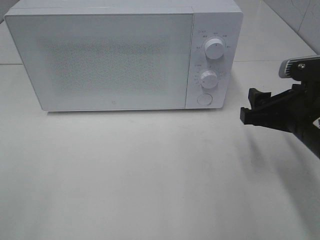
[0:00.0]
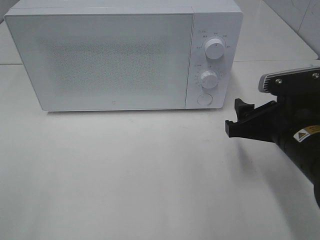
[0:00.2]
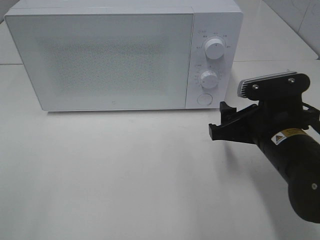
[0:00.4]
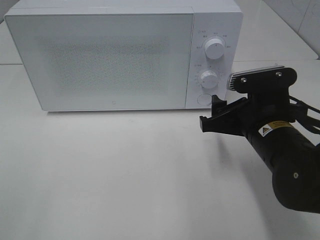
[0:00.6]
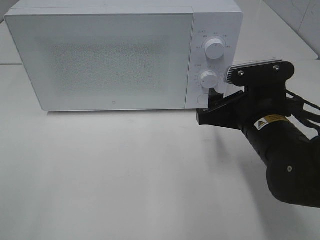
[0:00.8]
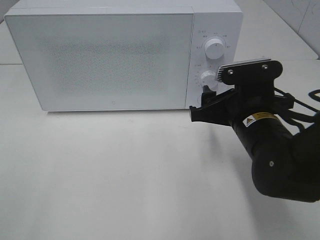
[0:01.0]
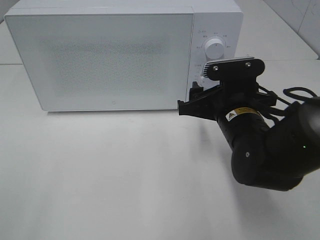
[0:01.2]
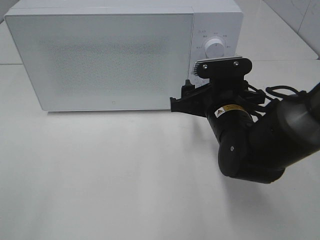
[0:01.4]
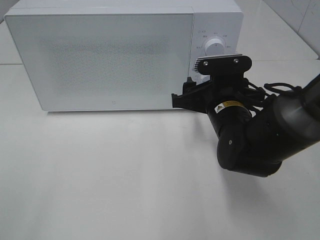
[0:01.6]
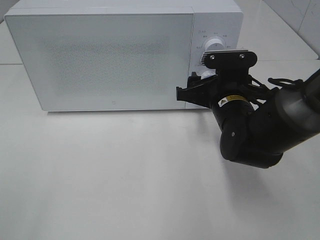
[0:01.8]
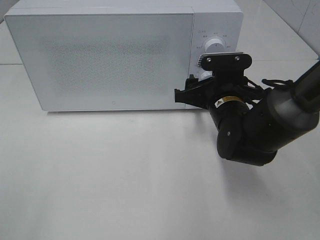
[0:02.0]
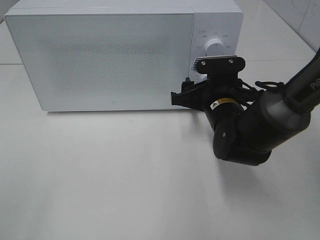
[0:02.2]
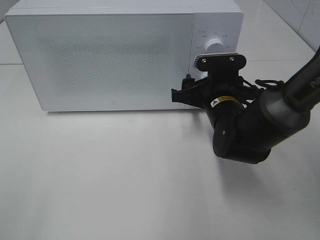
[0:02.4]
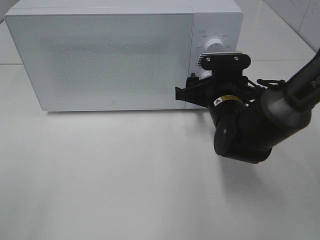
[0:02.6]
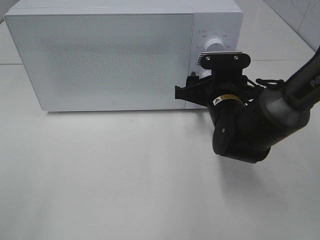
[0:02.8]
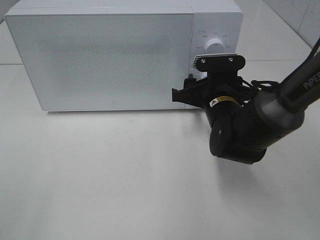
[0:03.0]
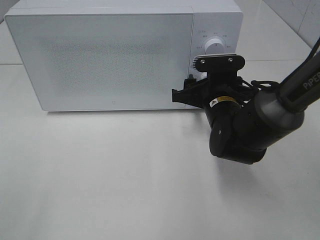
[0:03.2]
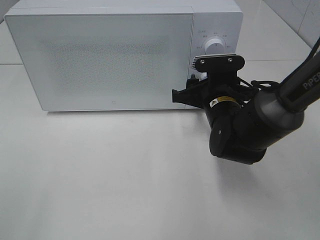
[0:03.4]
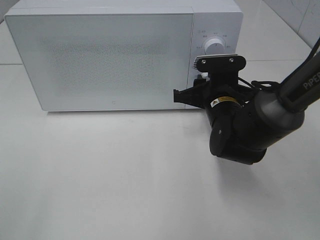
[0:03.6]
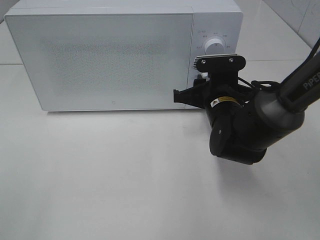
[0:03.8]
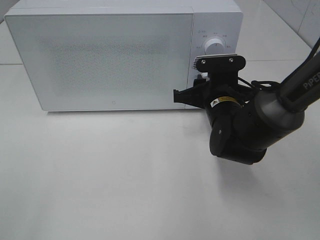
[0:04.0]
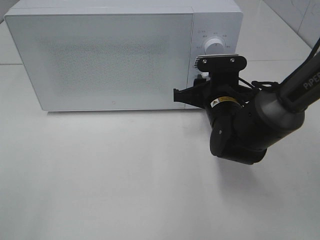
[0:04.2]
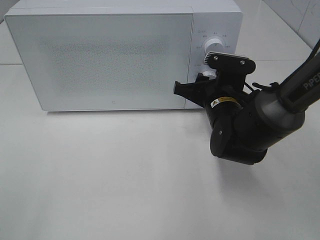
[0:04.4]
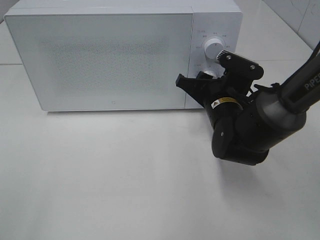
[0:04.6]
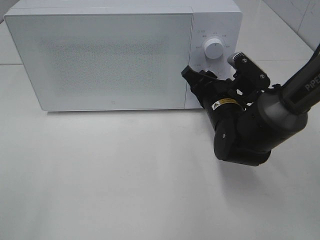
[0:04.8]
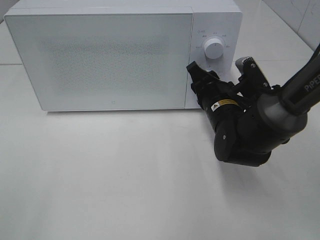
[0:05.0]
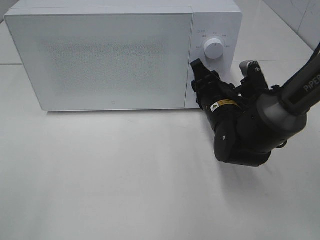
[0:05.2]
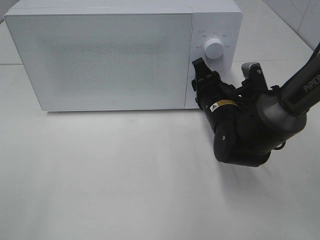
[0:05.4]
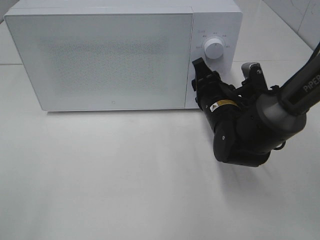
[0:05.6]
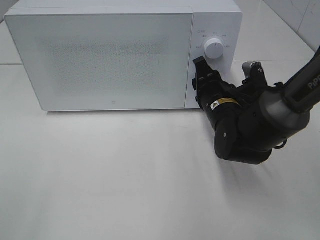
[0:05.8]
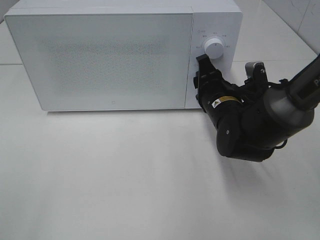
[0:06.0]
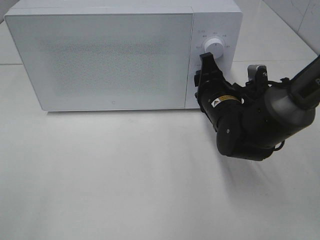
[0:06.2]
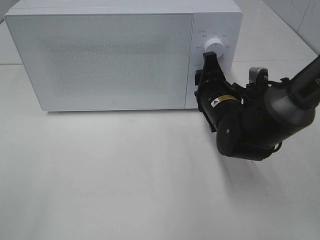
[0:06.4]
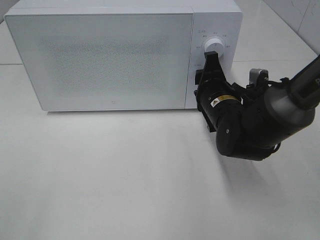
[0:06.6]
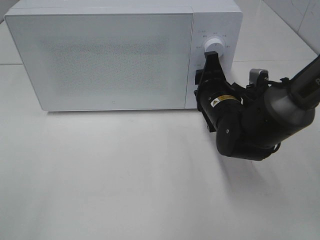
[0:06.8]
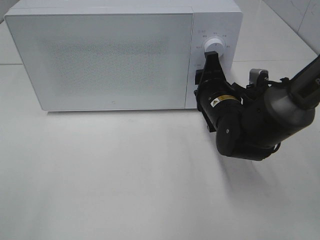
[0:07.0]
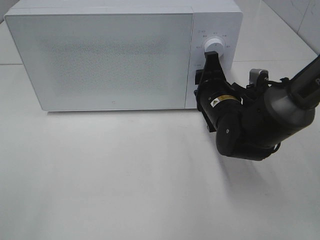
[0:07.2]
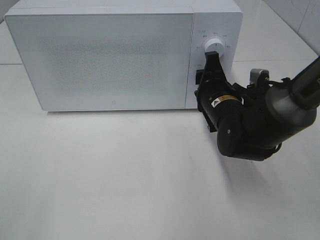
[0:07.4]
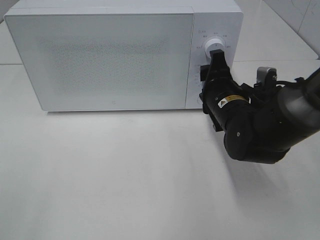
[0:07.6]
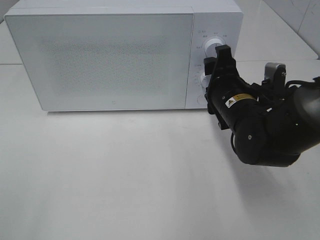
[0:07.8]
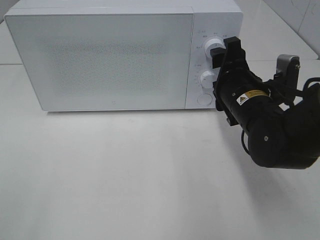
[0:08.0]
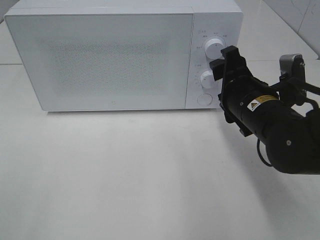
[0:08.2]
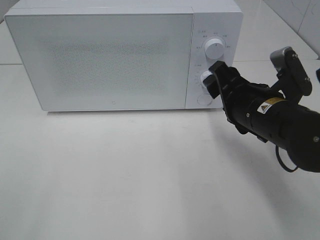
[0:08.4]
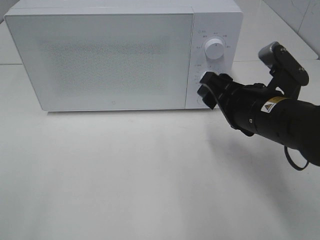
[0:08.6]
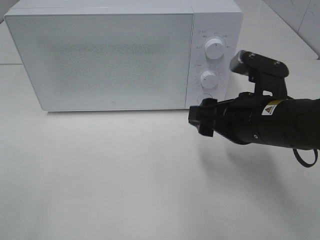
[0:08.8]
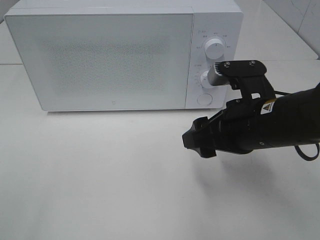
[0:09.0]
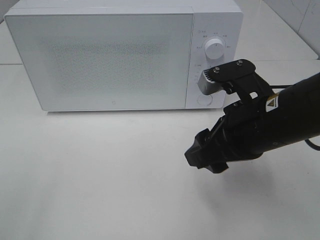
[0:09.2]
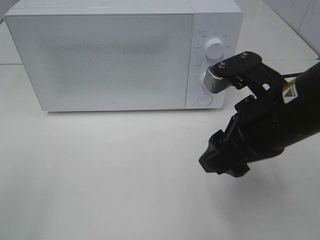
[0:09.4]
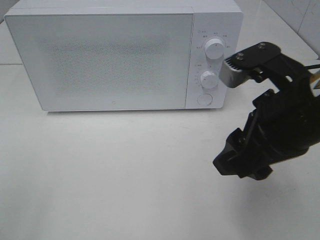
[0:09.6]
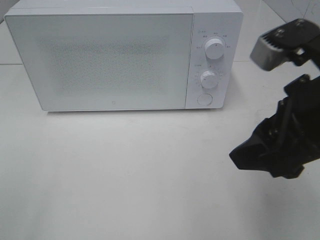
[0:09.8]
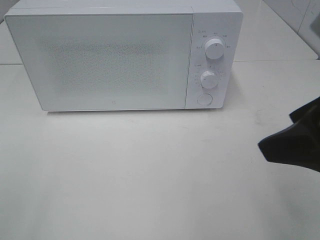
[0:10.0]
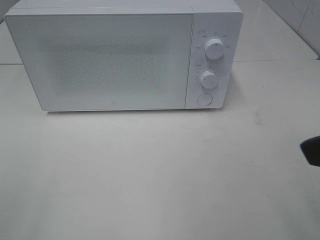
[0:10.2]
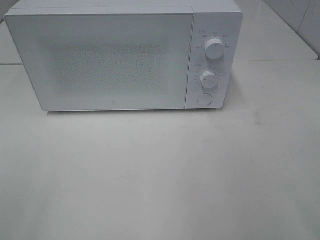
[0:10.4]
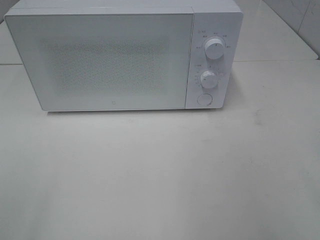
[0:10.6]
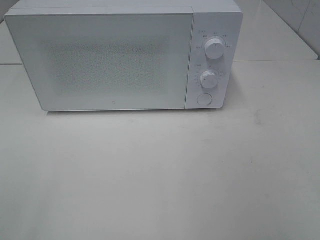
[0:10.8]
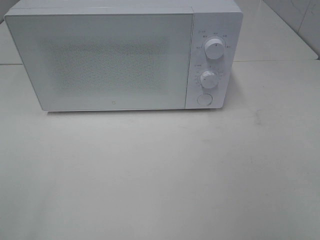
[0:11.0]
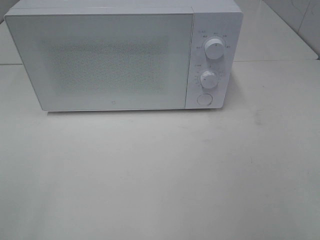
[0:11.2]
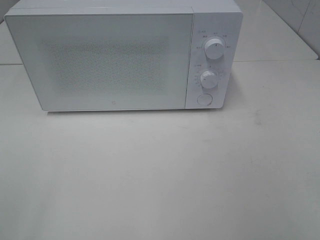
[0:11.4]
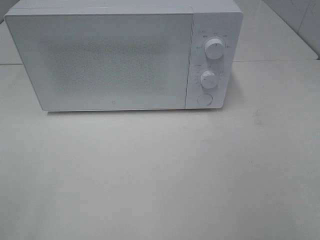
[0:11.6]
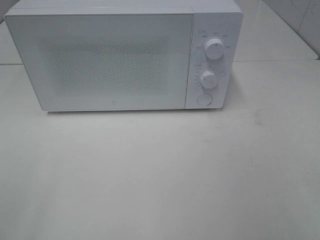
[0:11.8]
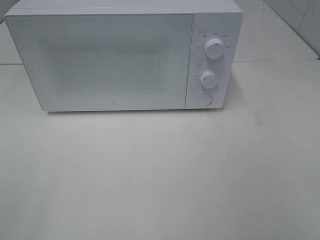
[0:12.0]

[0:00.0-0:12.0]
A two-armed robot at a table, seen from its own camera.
Task of the whole recording: Heat the burger.
Step, 0:00.0 to 0:07.6: Right hand: twist timer button.
0:00.0 to 0:01.6: The right gripper goes some 10 cm to the left and forward.
0:01.6 to 0:04.4: The grippers stay close to where they were, moving slightly.
0:06.0 to 0:07.6: The grippers stay close to where they were, moving slightly.
0:07.6 to 0:09.0: The right gripper goes roughly 10 cm backward and upward.
0:09.0 to 0:10.4: The right gripper is displaced upward, backward and to the right by about 20 cm.

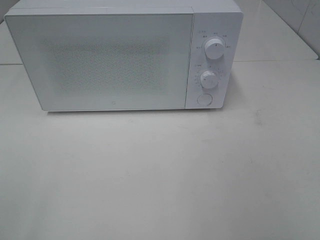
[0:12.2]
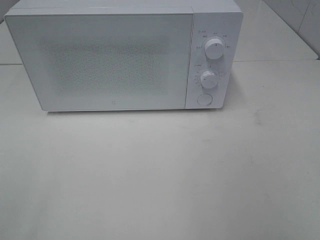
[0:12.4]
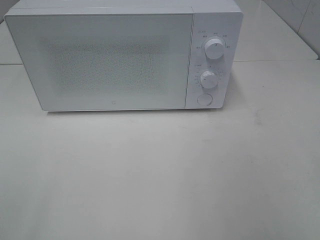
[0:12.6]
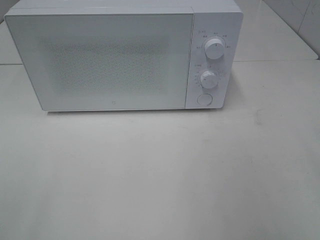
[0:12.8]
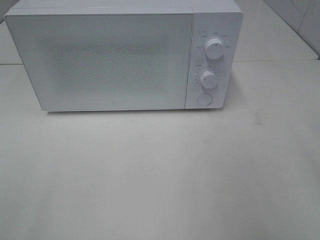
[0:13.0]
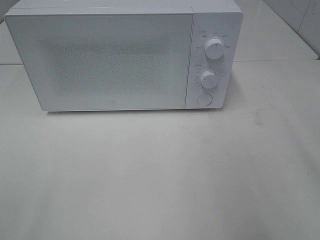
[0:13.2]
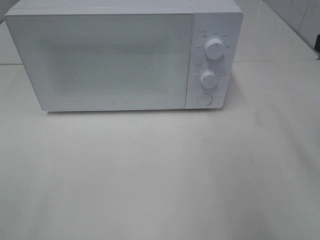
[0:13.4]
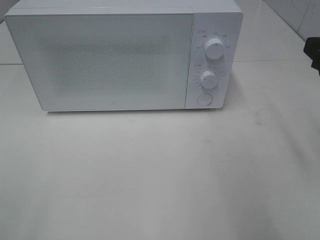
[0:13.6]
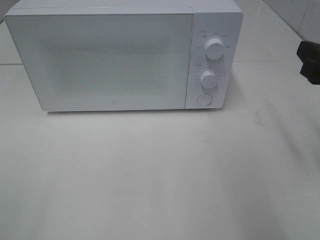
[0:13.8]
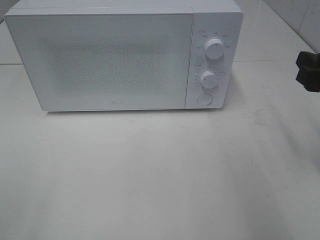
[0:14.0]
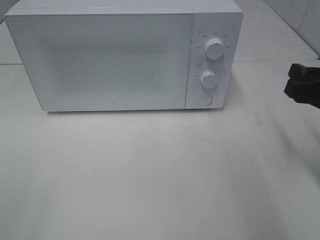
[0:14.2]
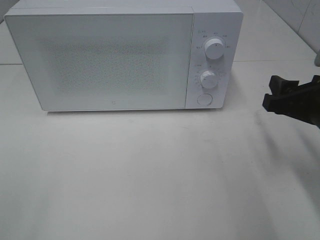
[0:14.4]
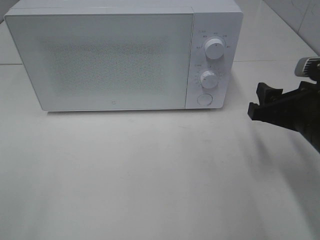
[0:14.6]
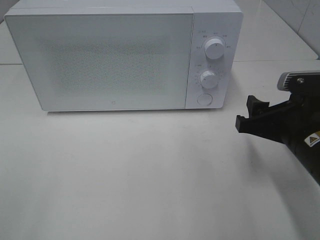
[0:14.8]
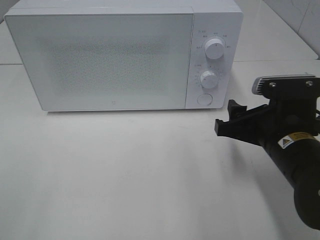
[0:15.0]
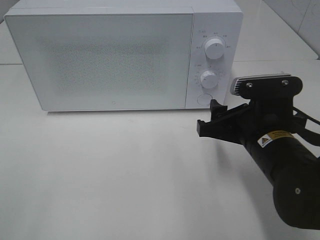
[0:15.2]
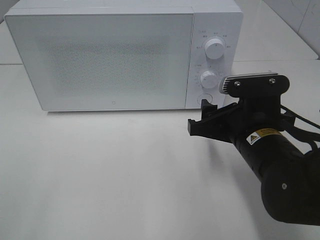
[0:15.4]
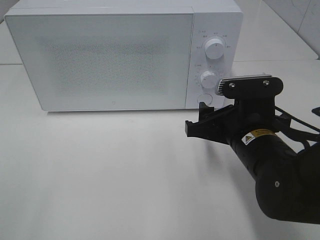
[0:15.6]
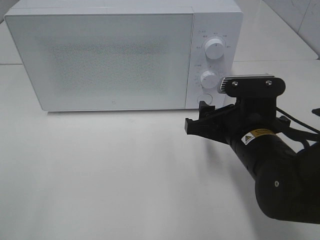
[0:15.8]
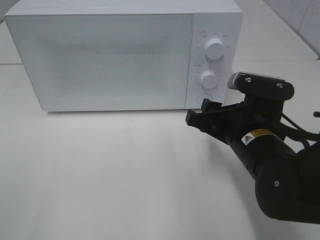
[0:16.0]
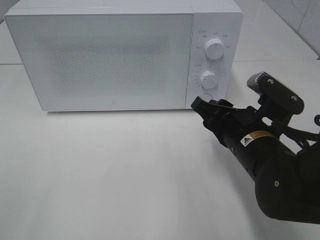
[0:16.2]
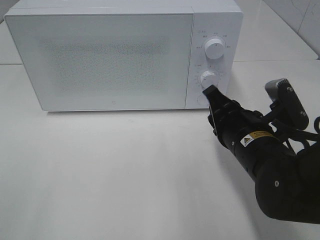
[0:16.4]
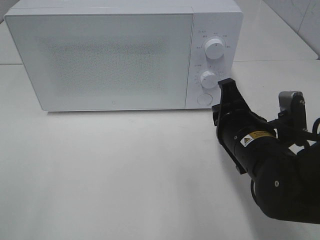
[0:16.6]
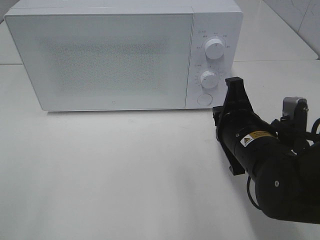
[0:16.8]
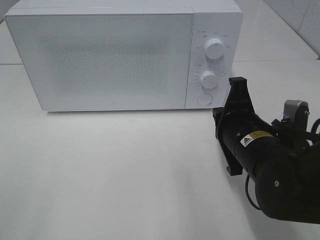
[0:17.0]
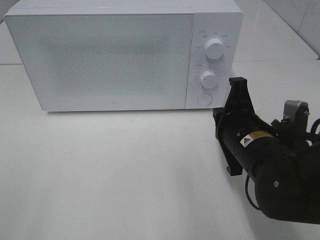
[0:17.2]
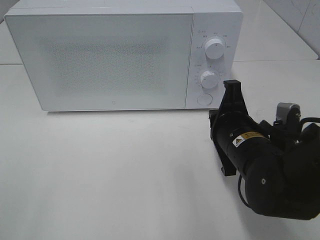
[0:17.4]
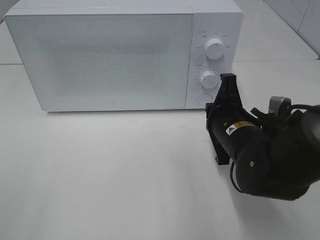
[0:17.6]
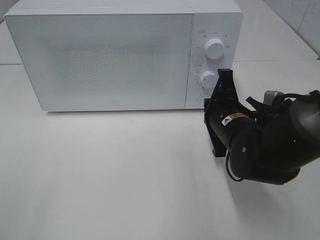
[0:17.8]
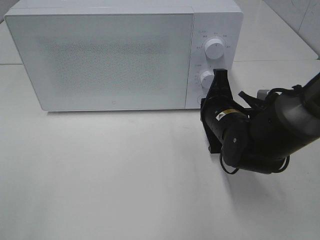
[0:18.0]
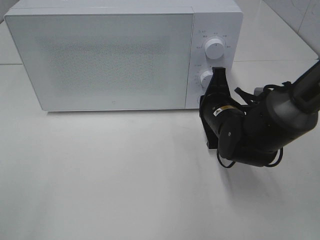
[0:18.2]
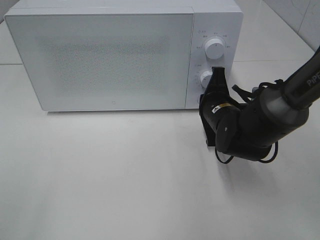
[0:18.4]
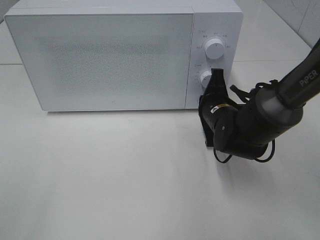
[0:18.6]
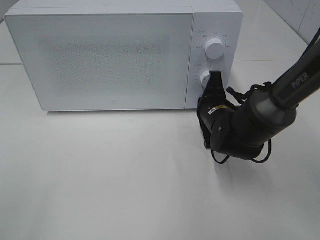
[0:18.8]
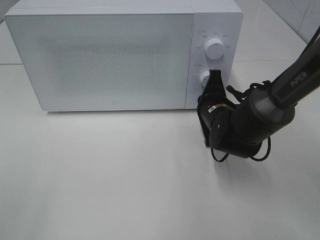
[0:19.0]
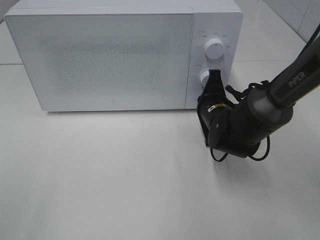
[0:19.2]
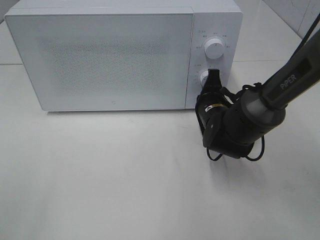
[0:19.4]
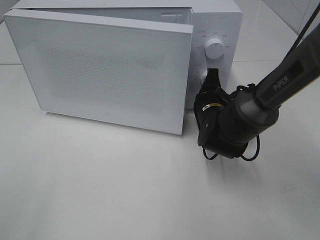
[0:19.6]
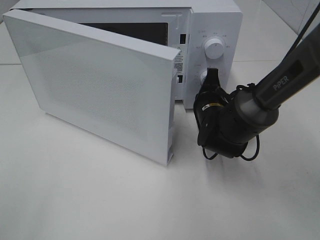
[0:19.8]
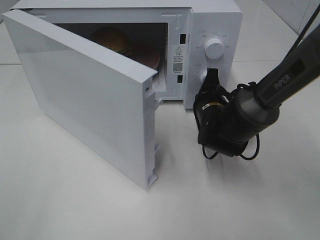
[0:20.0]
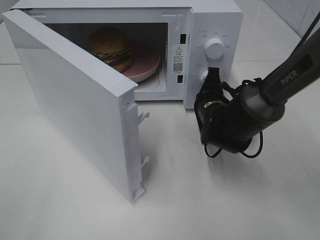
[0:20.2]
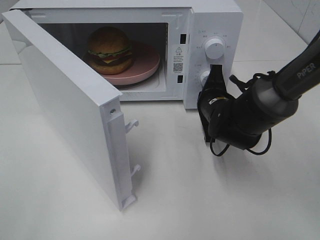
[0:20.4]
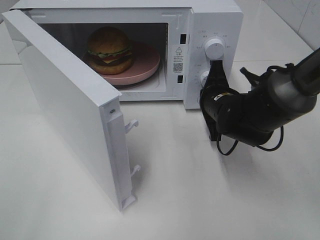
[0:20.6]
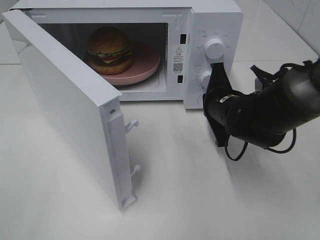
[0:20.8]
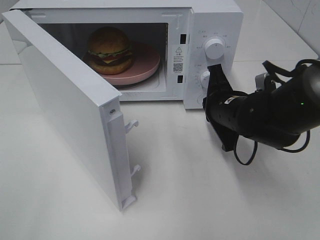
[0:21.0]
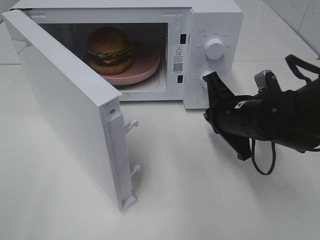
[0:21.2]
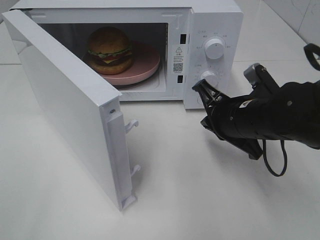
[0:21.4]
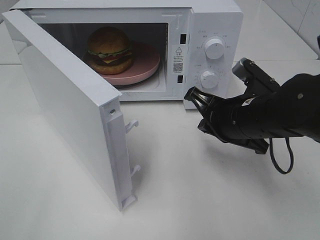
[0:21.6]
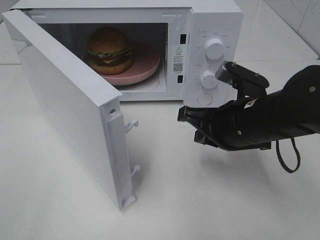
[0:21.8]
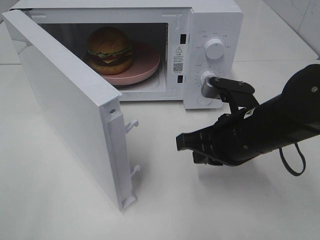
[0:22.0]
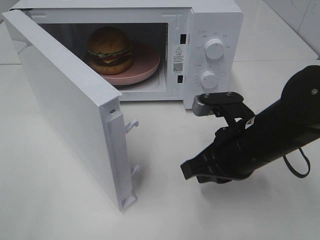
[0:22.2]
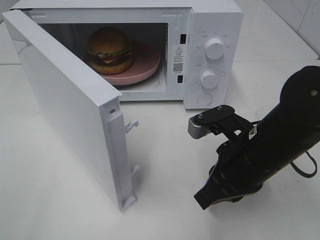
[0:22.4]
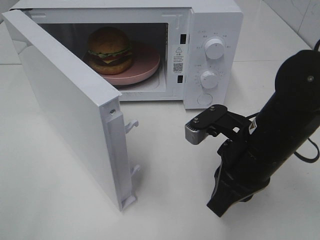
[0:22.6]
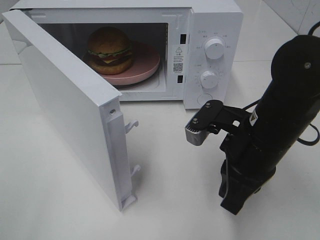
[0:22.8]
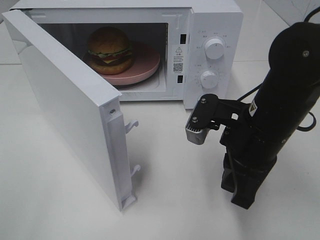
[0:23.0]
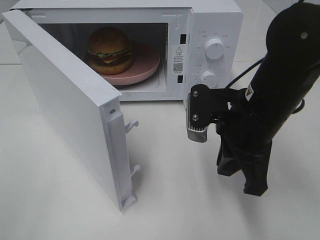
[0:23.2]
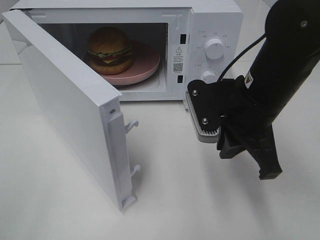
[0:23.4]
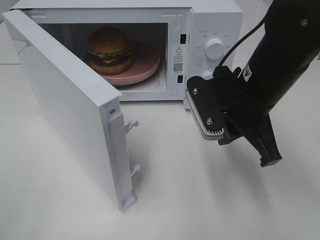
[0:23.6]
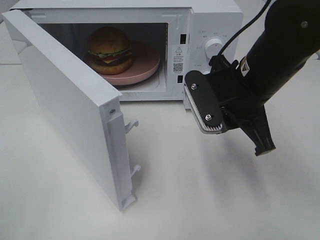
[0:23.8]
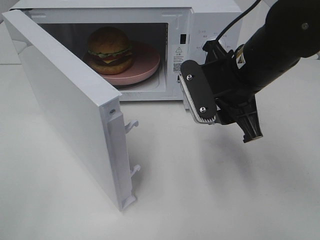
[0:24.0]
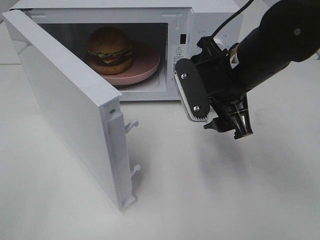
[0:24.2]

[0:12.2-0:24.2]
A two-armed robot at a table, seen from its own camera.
Task of the whole recording: Heat the burger.
Step, 0:12.2 to 0:20.6: Right hand: press the switch.
0:12.2 to 0:13.8: The right gripper shifts approximately 20 cm forward.
0:13.8 to 0:15.2: The right gripper moves to the left and downward, about 15 cm.
0:15.2 to 0:16.6: The right gripper closes up.
0:16.6 to 0:18.2: The right gripper travels forward by approximately 10 cm.
0:19.8 to 0:21.2: The right gripper heads backward and upward, covering approximately 10 cm.
0:21.2 to 0:22.6: The right gripper goes roughly 5 cm backward.
0:22.6 to 0:24.2: The right gripper goes about 10 cm forward and upward, and opens up.
